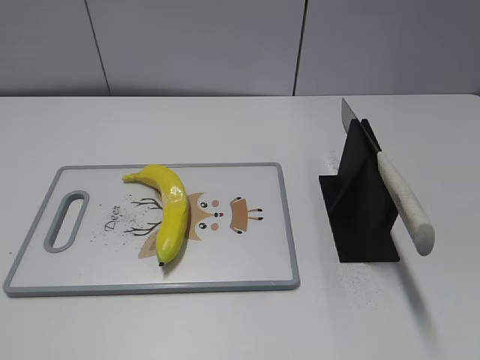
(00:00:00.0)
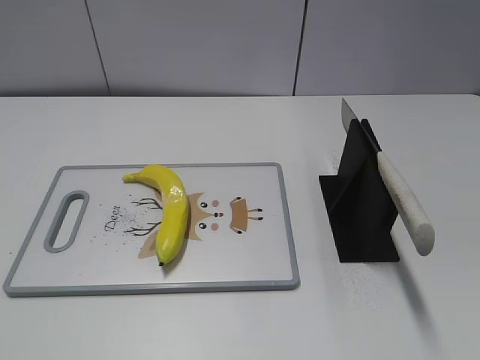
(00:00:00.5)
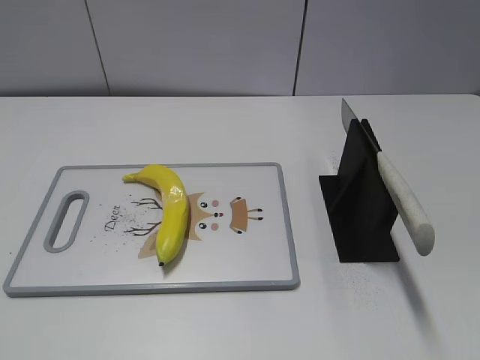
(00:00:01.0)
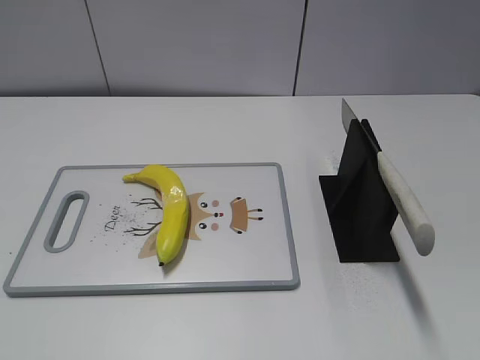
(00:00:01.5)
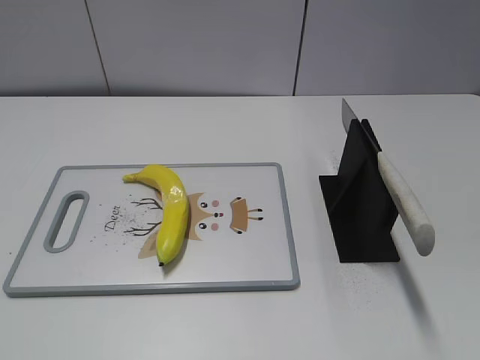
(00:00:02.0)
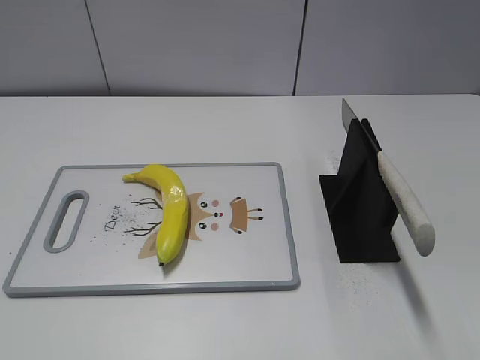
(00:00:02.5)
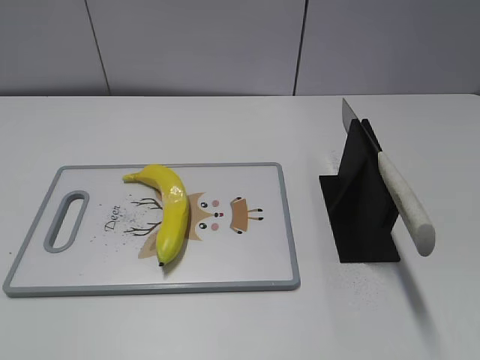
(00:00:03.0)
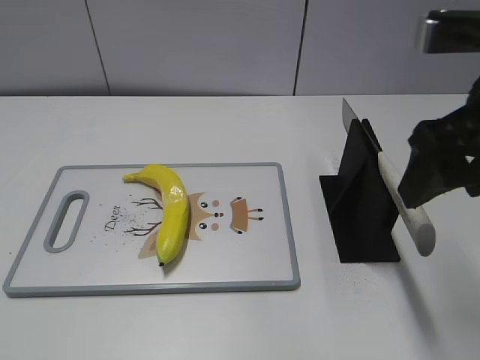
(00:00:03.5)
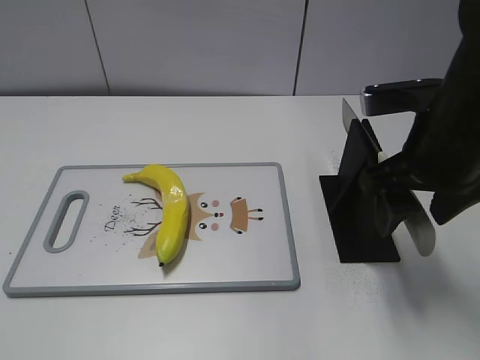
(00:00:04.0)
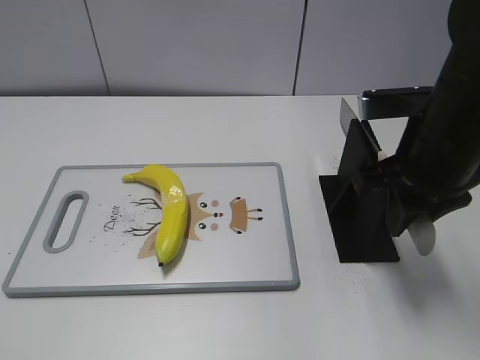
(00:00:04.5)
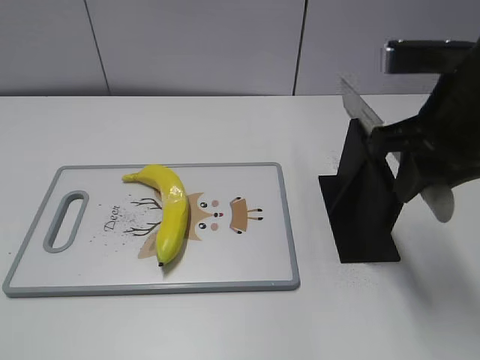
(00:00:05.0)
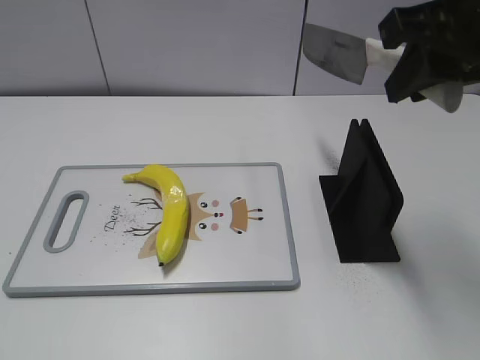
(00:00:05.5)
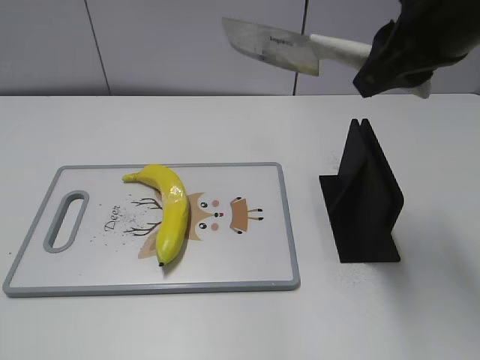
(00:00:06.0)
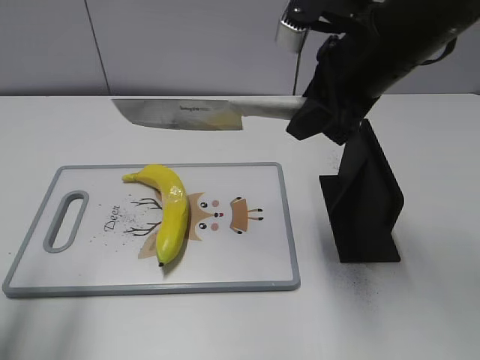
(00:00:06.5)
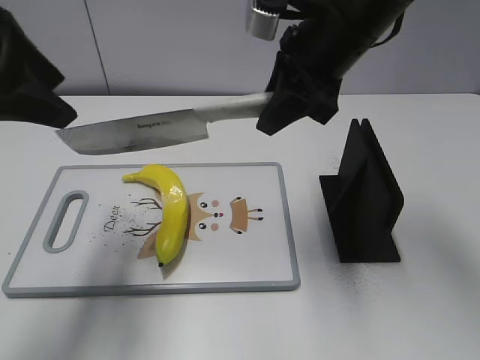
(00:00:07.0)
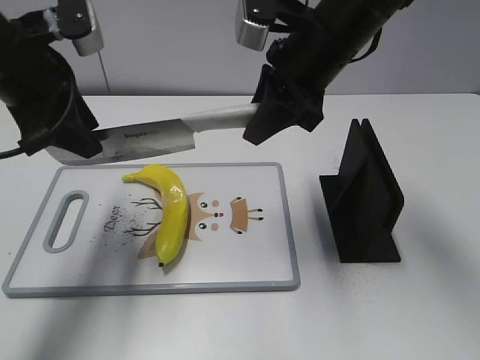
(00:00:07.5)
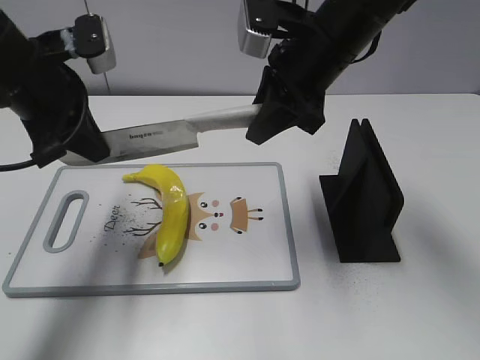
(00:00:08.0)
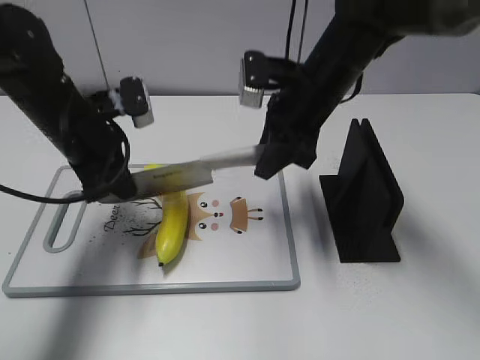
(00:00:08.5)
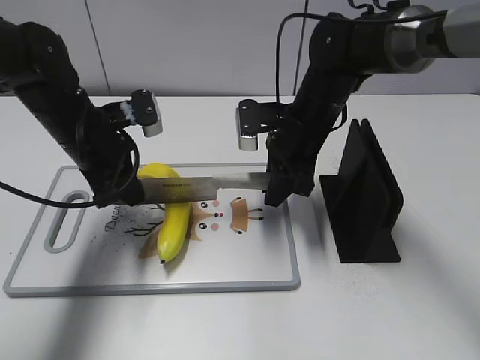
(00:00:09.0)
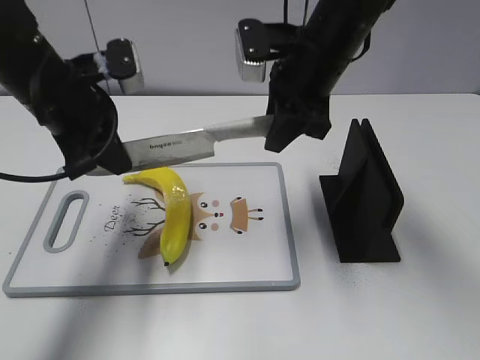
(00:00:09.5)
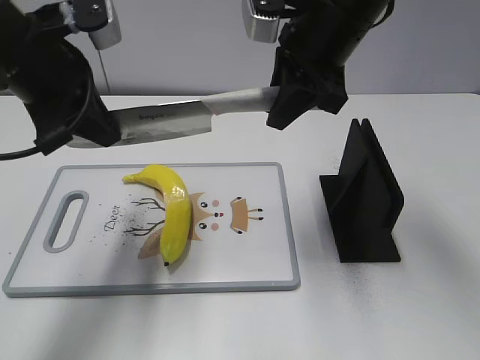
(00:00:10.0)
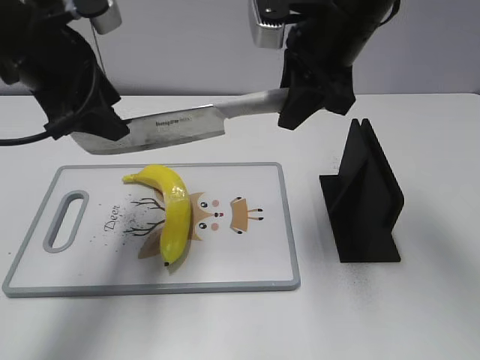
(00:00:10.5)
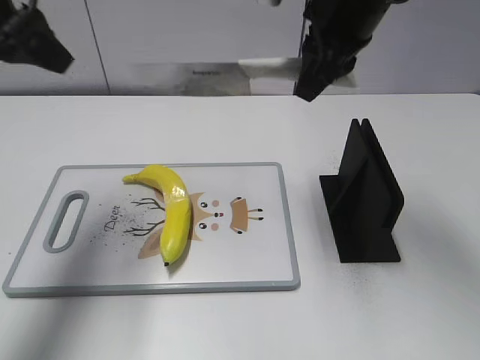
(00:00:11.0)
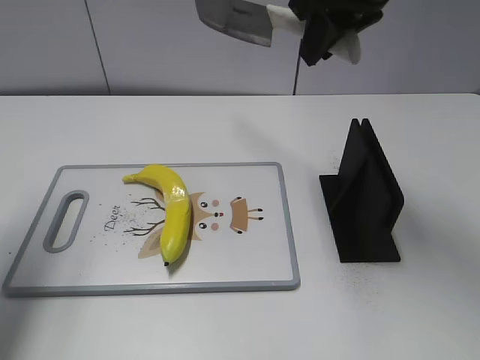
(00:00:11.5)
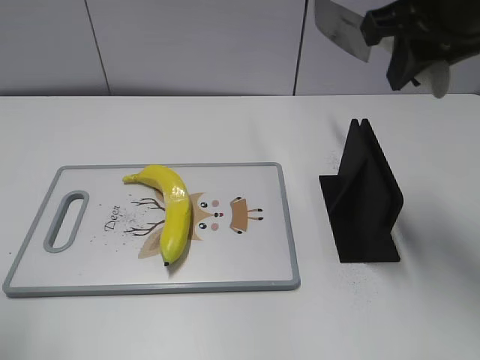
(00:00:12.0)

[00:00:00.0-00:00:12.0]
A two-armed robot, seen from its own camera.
Task of the whole recording: cut plastic banana.
Step, 00:00:00.0 to 00:00:05.5: Grab the knife handle with your right hand.
Step, 00:00:06.0 to 00:00:10.0: Lift the knife with your right hand.
00:00:02.0 to 00:00:04.0: The right gripper shifts roughly 25 cm forward and to the left.
00:00:04.0 to 00:00:06.0: The right gripper heads upward, covering about 10 cm, and closes its fingers.
00:00:06.0 to 00:00:08.0: The left gripper travels forward by about 30 cm, and closes up, while the right gripper travels forward, downward and to the left by some 15 cm.
00:00:08.0 to 00:00:10.0: The right gripper moves approximately 10 cm downward and comes back, while the left gripper goes downward and returns, about 10 cm each way.
00:00:10.0 to 00:00:12.0: The right gripper heads to the right, backward and upward, covering some 10 cm; the left gripper goes some 20 cm backward and to the left, and opens.

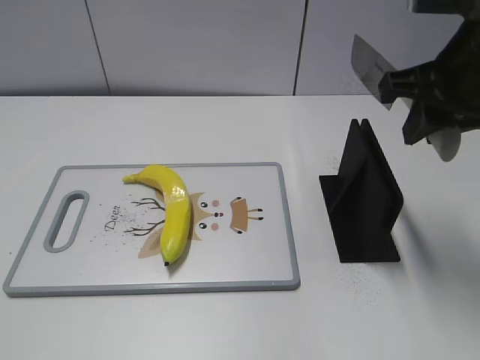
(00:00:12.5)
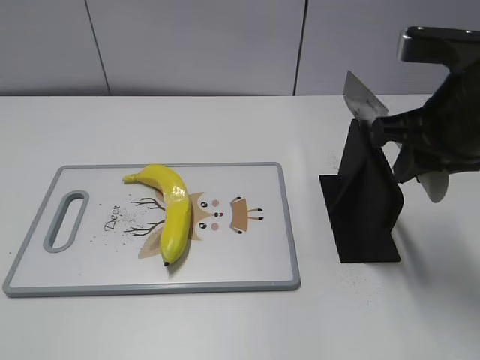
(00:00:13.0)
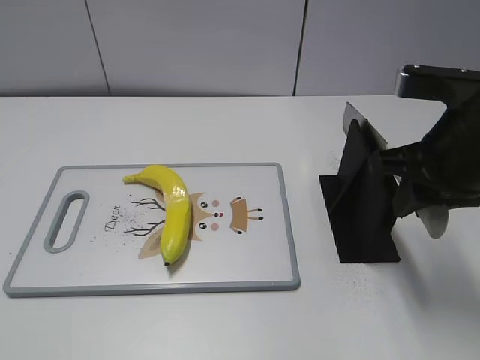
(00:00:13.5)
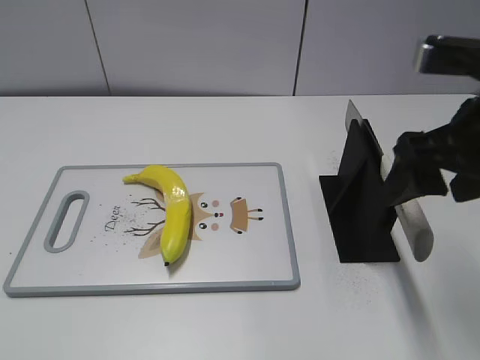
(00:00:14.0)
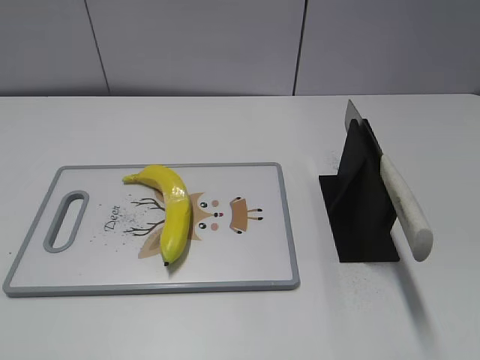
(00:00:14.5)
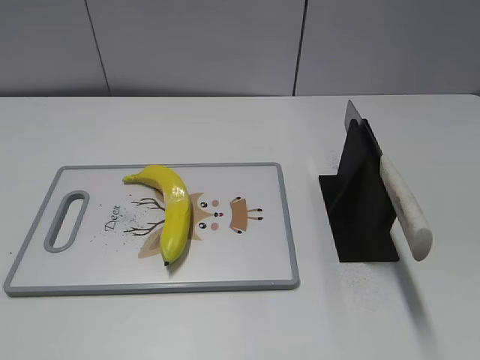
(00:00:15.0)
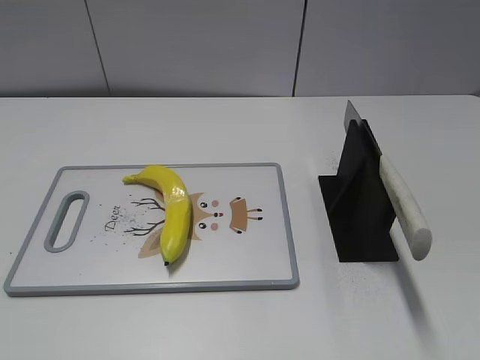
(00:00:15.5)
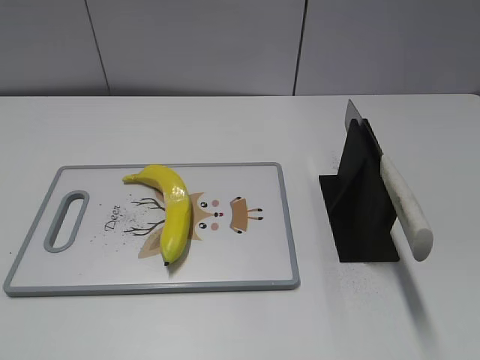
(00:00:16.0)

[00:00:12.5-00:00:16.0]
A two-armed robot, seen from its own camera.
Task of the whole recording: cut plastic banana.
Step, 00:00:12.5 to 00:00:16.0: Place the knife on the storage rack with your right hand.
00:00:12.5 to 00:00:14.5: The right gripper heads backward, covering about 20 cm, and opens up.
